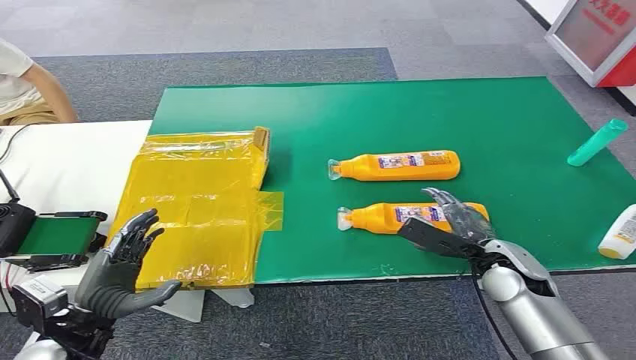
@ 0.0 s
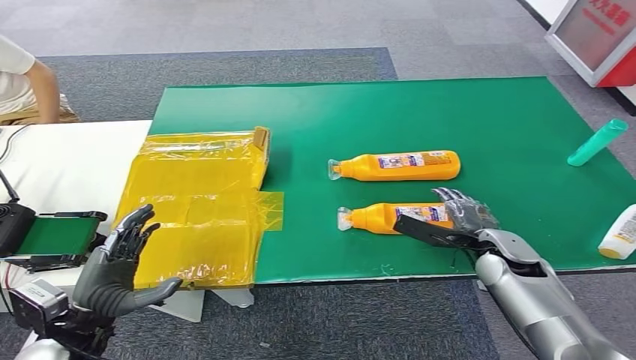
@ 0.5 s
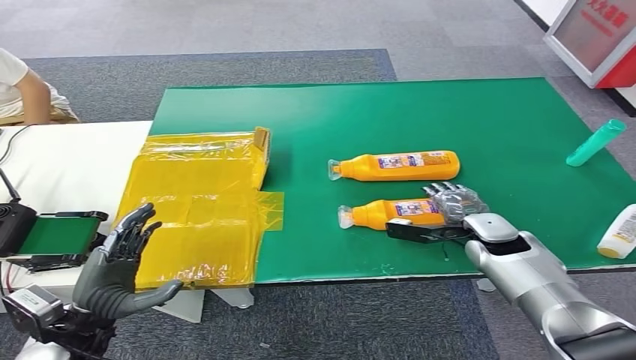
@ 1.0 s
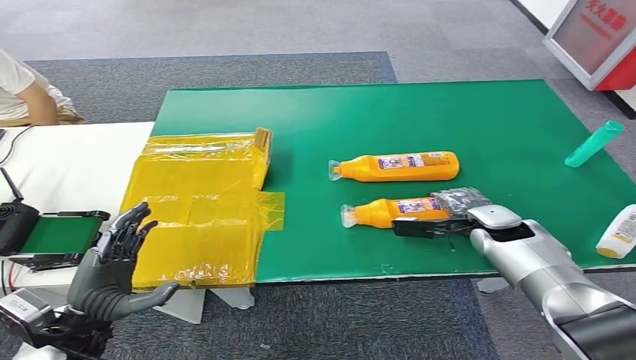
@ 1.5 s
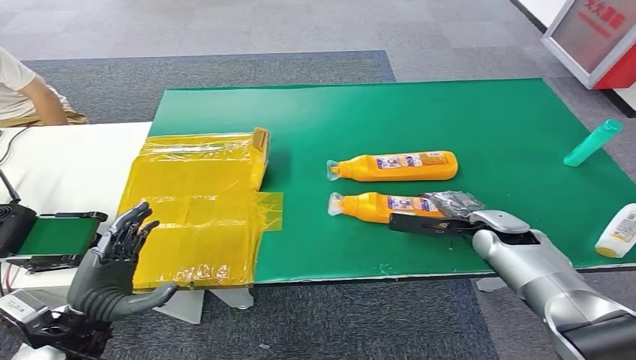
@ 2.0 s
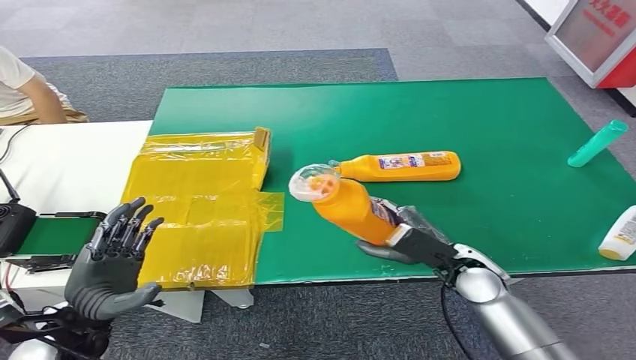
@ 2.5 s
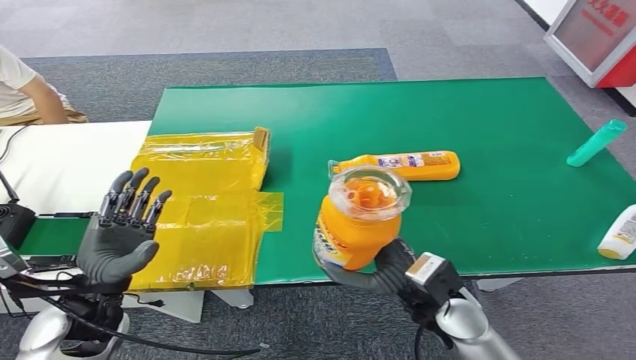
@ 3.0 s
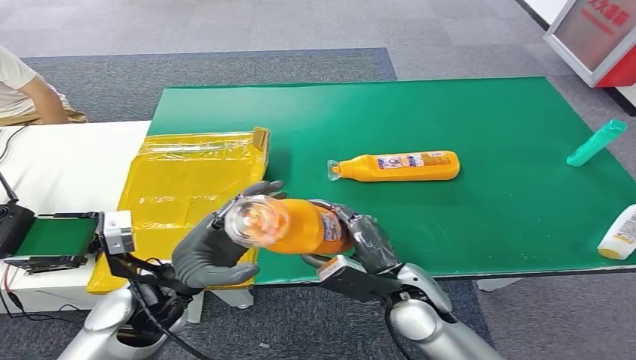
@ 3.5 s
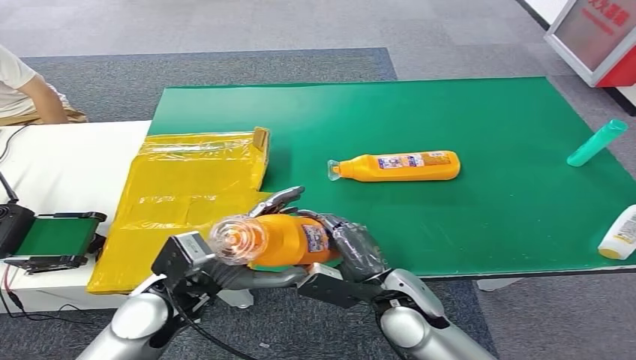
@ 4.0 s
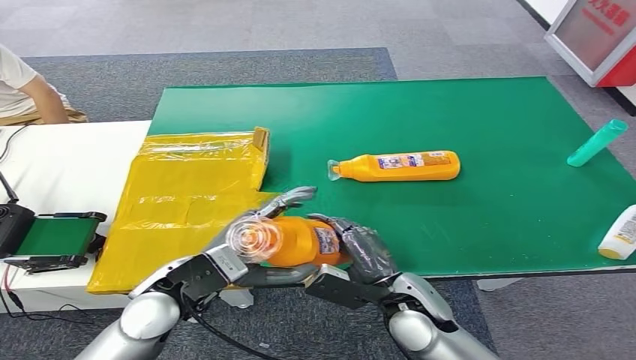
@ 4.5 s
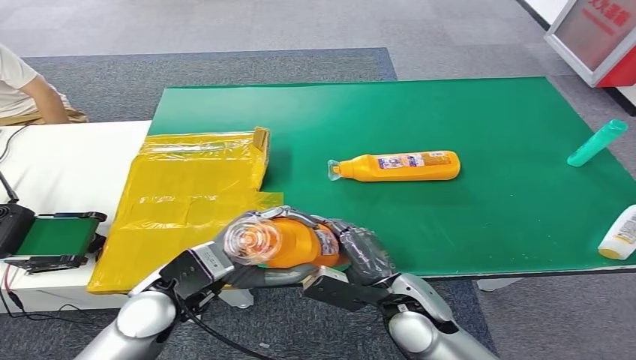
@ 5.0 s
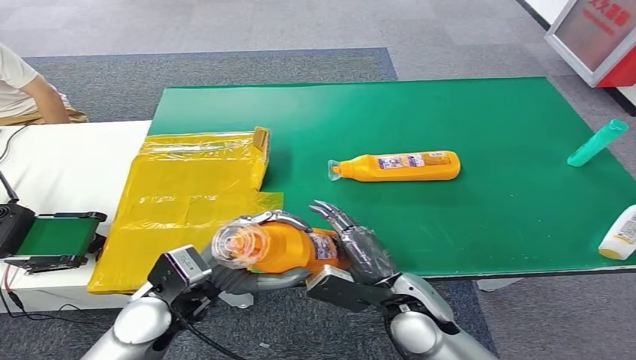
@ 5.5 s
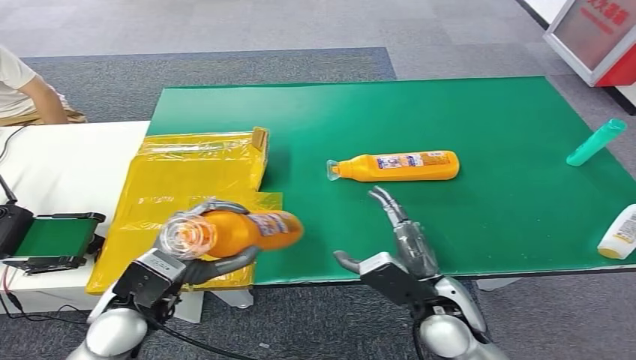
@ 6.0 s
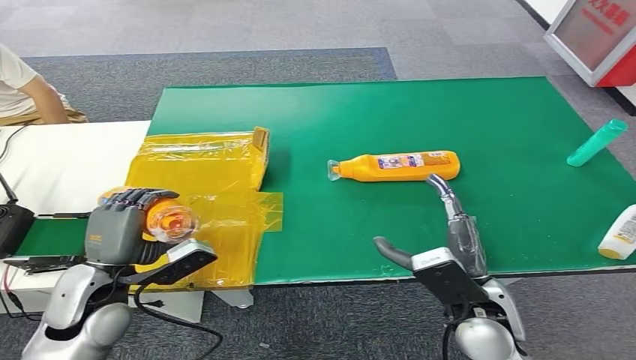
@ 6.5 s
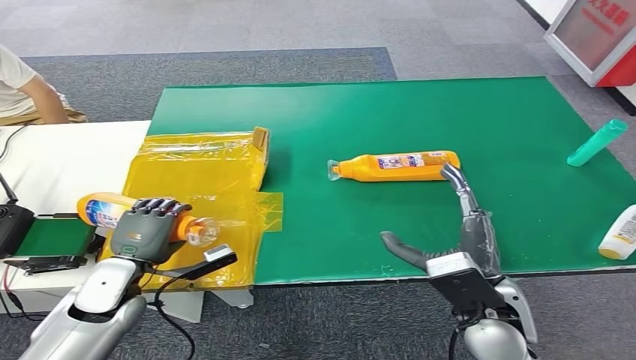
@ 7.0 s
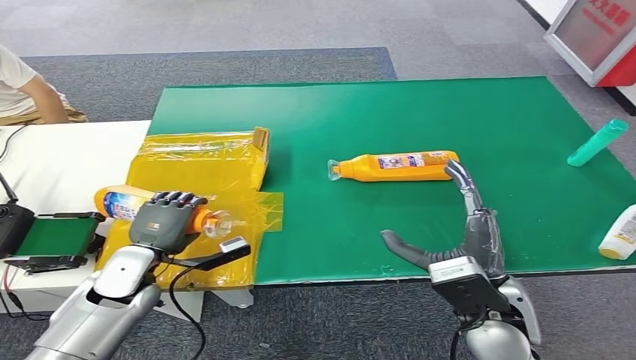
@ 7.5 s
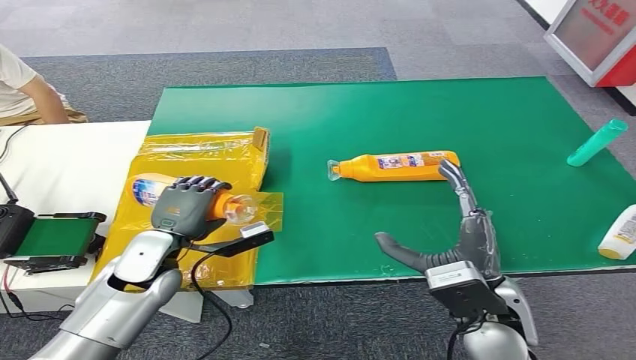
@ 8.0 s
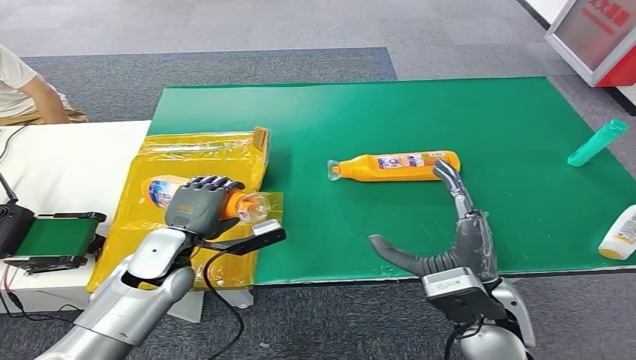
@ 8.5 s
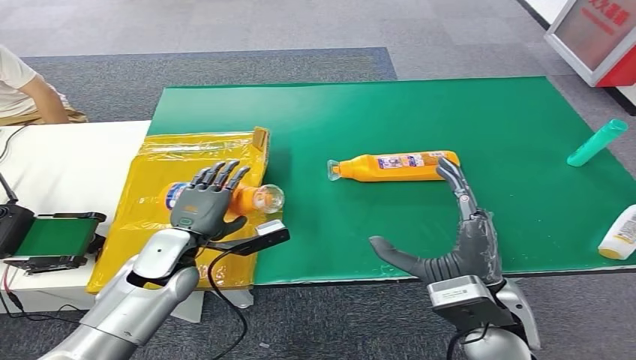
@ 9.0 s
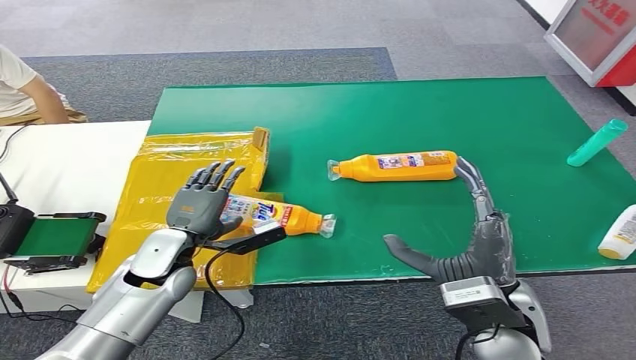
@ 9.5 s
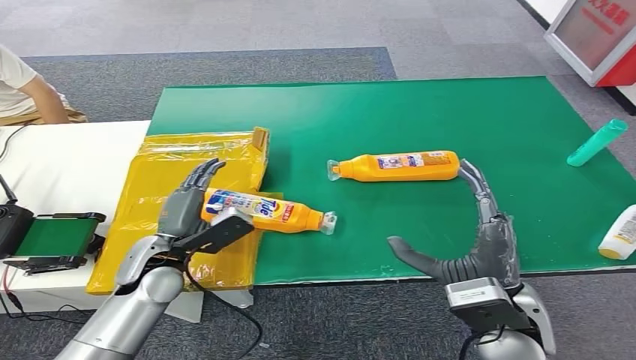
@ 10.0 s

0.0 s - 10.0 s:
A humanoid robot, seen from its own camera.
Step, 0.0 s - 3.0 s: Pick up the bottle from the table.
Step, 5.0 s - 10.0 s: Turn the bottle to the front side.
4.0 s - 6.0 s: The right hand changes place by roughly 5 cm.
6.0 s - 8.0 s: The right hand heads upward, covering approximately 5 cm. The left hand shifts approximately 10 cm forward.
